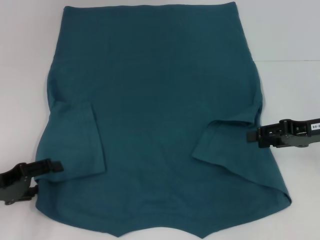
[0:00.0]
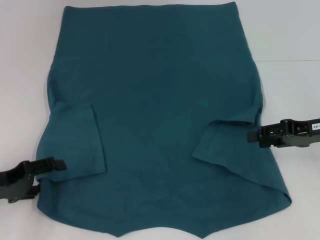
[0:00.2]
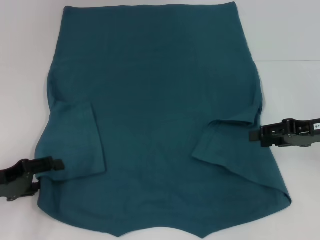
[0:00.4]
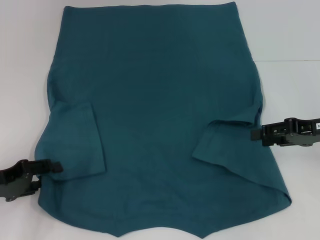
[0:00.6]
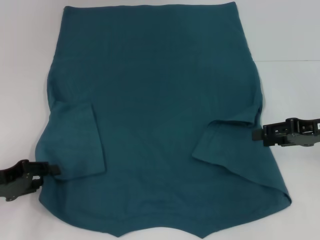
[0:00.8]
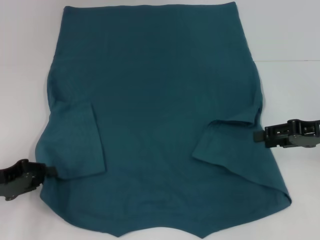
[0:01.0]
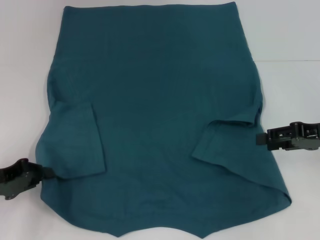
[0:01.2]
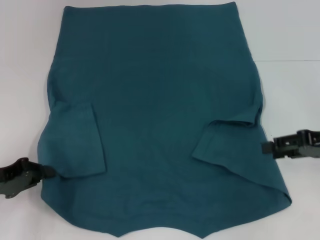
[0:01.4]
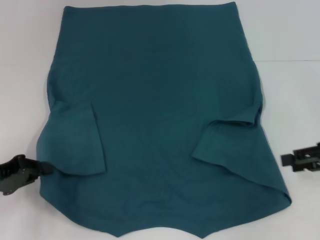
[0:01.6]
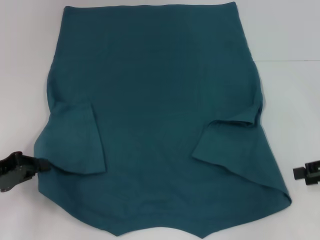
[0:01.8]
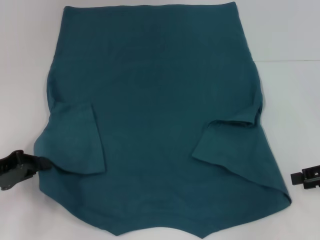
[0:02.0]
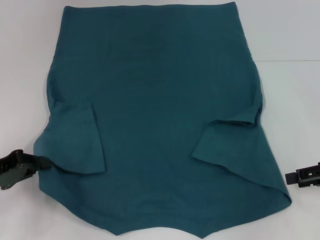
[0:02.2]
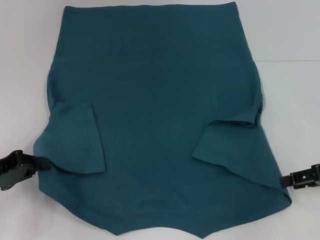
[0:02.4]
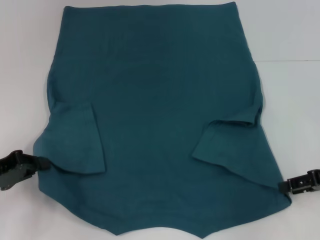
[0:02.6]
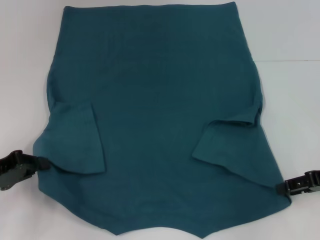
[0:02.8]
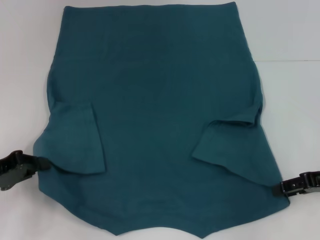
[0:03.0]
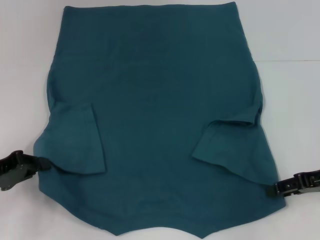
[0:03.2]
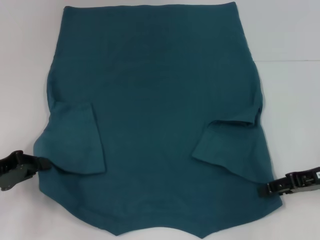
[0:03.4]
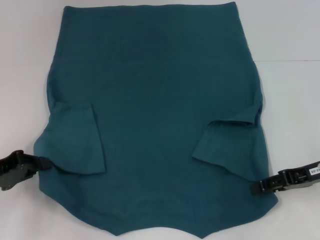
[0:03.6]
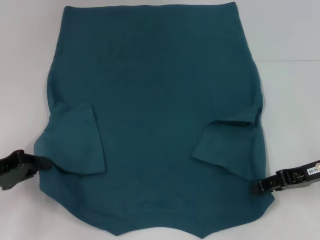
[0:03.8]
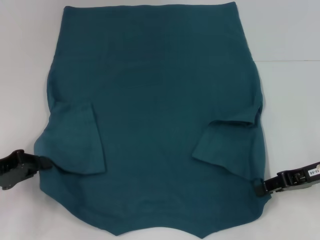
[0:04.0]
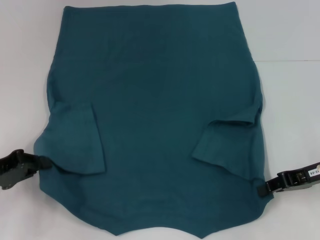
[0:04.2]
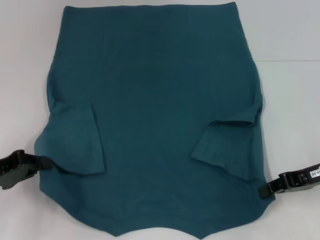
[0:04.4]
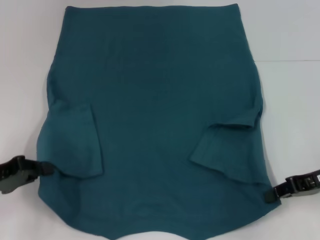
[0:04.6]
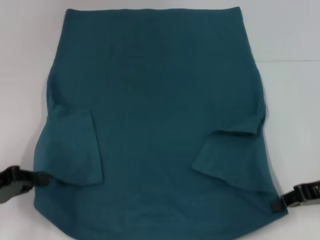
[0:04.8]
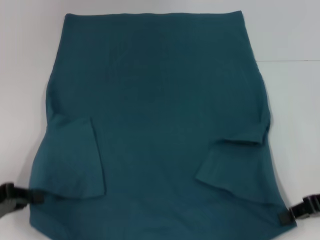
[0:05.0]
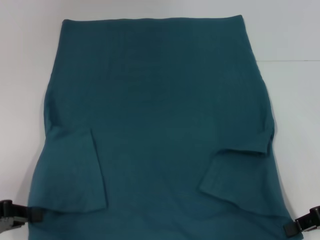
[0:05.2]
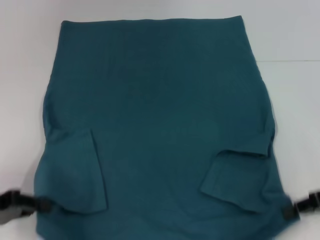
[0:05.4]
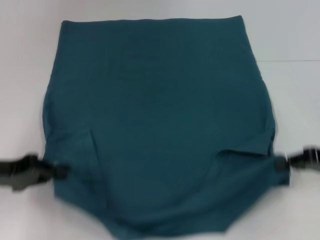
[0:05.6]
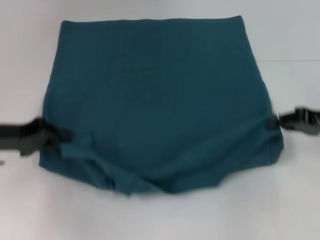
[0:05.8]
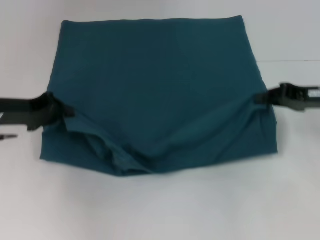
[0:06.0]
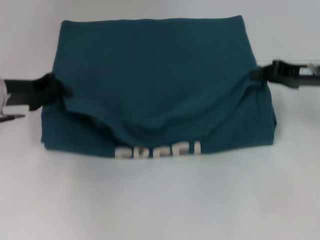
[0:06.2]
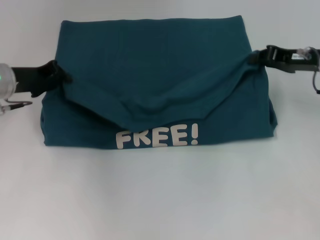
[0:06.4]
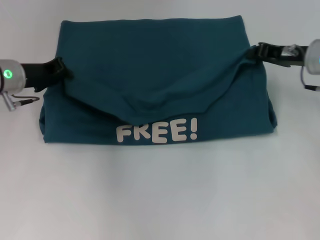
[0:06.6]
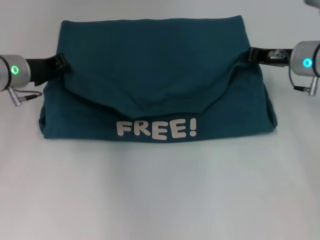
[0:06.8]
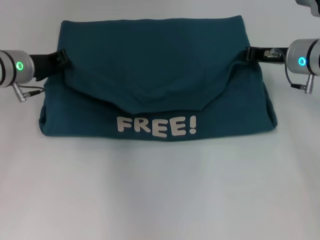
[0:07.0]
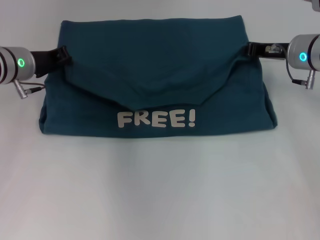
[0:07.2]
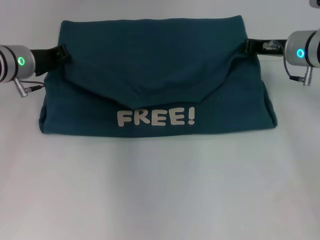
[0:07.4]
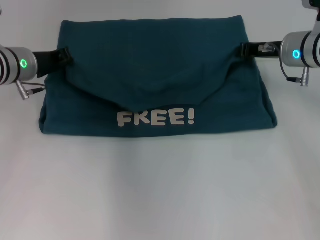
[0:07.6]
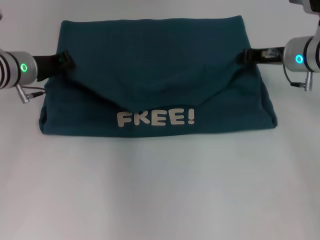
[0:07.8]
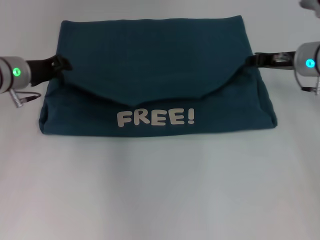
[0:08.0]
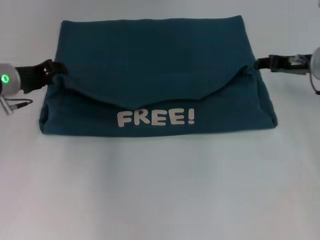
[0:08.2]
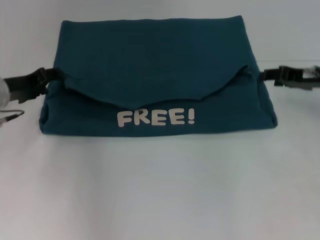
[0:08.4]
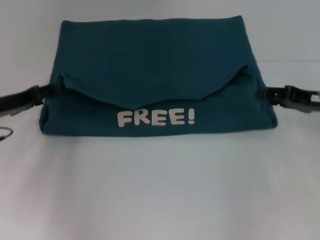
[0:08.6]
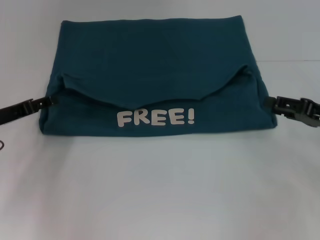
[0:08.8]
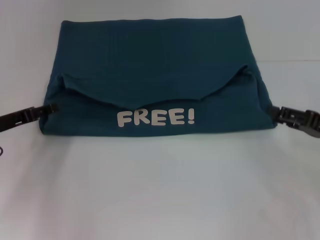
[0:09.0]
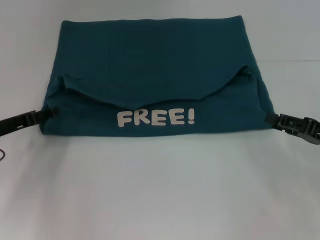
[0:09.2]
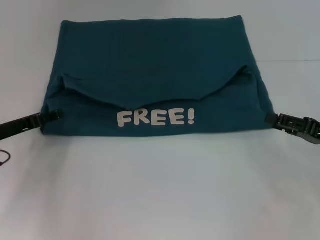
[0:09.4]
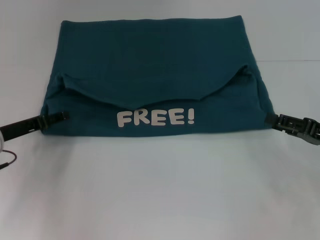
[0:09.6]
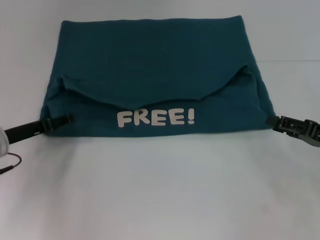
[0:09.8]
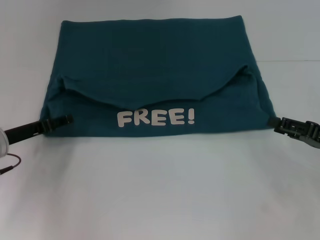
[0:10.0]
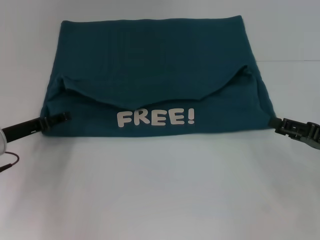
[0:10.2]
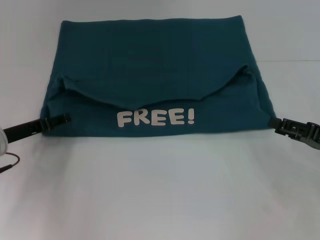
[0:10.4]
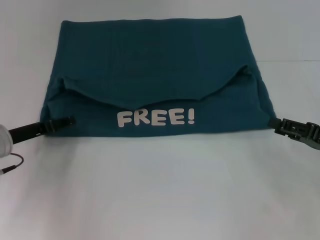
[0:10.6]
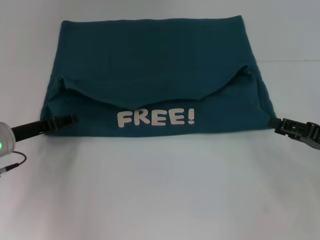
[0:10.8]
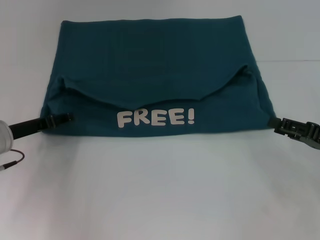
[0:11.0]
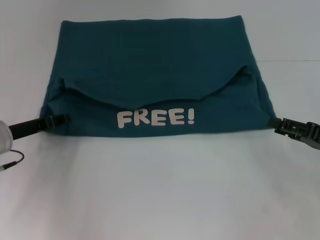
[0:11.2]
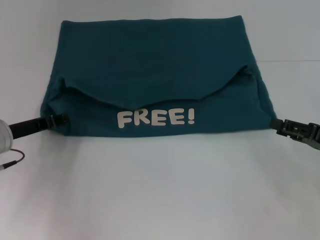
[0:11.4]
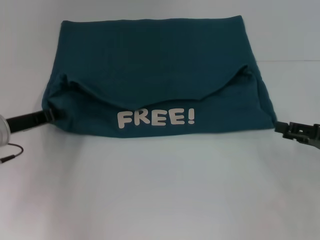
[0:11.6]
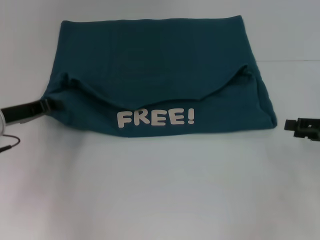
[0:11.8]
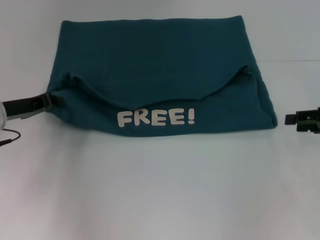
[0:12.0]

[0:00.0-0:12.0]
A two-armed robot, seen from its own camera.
Step, 0:01.4 to 0:04.4: Grab the bottom right corner with your right hand.
Step, 0:04.6 to 0:08.2: Fold the clothes to the left.
Step, 0:04.6 to 0:08.2: Fold the clothes to the right.
0:00.0 to 0:01.6: The right gripper shifts by some 5 cm. Meanwhile the left gripper closes its fingers.
0:01.6 to 0:03.0: The grippers stay close to where they were, moving slightly.
0:03.0 to 0:04.4: The right gripper closes up.
0:04.4 to 0:06.0: The left gripper goes about 10 cm forward. Meanwhile the right gripper heads forward, covering some 5 cm.
0:06.0 to 0:07.6: The left gripper moves forward and to the right, about 10 cm. The right gripper heads forward and to the left, covering approximately 10 cm.
0:07.6 to 0:09.0: The right gripper shifts approximately 20 cm backward and to the right, and opens its fingers. Meanwhile the left gripper goes roughly 15 cm backward, to the left and downward, and opens up.
0:09.0 to 0:10.4: There are only small adjustments of the grippers.
0:10.4 to 0:12.0: The right gripper moves forward, roughly 5 cm. Meanwhile the left gripper closes up.

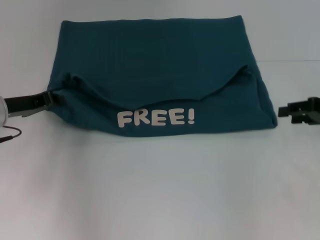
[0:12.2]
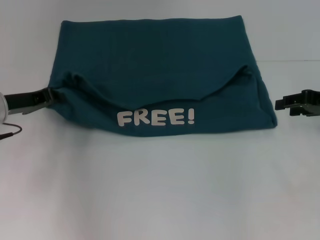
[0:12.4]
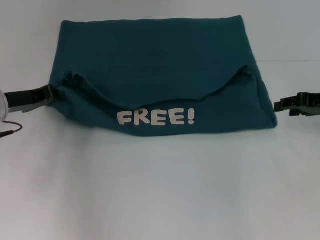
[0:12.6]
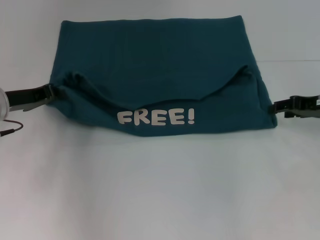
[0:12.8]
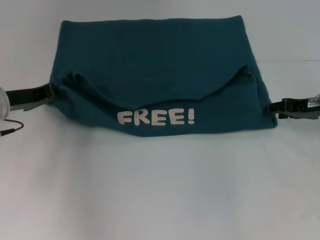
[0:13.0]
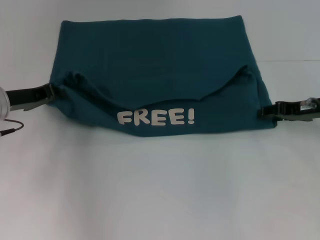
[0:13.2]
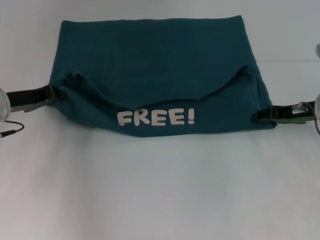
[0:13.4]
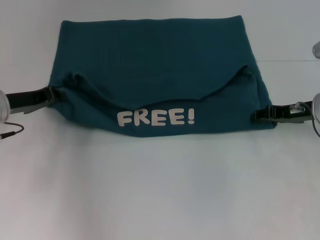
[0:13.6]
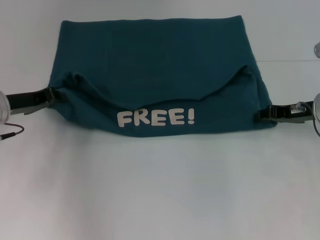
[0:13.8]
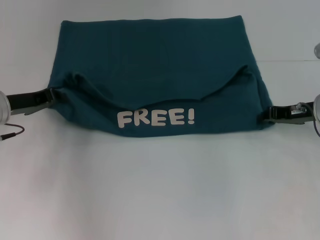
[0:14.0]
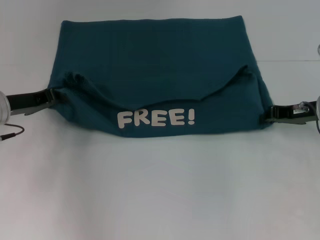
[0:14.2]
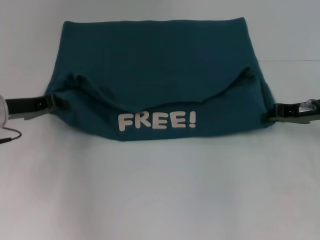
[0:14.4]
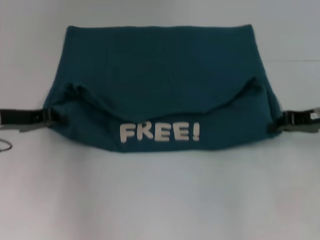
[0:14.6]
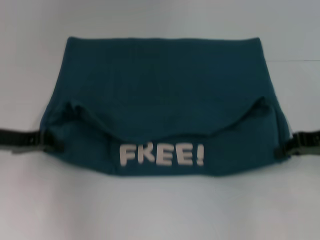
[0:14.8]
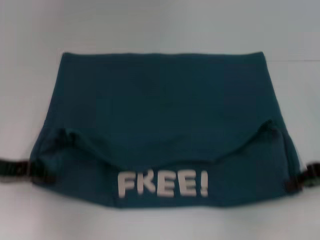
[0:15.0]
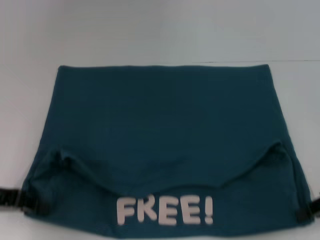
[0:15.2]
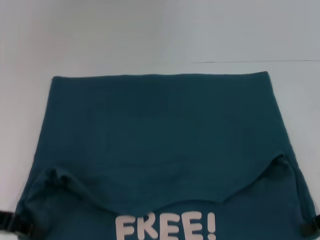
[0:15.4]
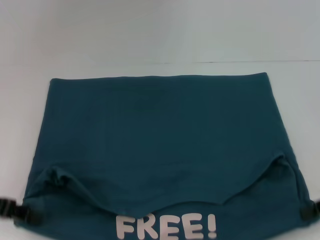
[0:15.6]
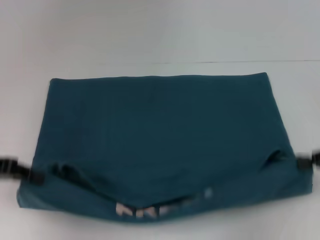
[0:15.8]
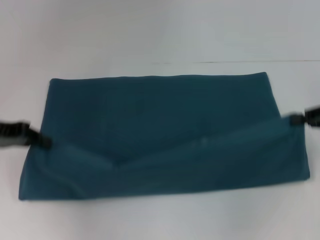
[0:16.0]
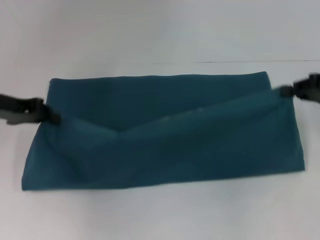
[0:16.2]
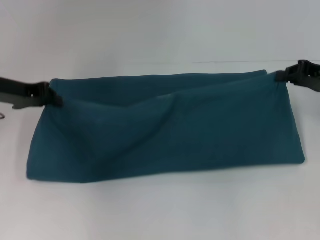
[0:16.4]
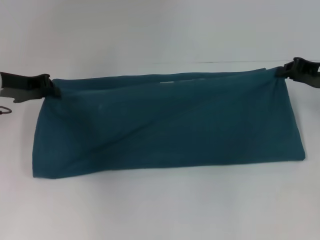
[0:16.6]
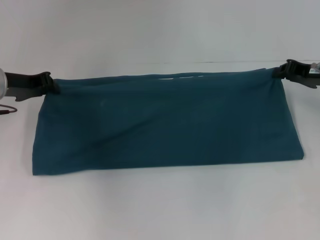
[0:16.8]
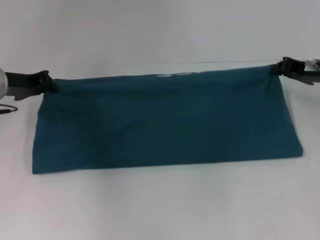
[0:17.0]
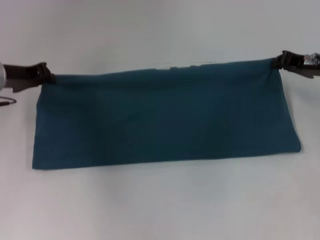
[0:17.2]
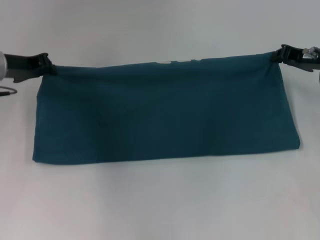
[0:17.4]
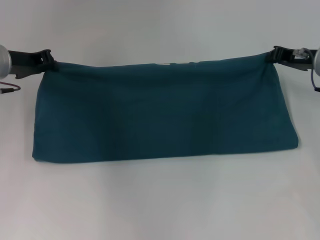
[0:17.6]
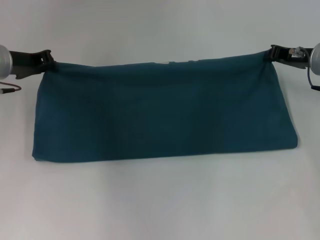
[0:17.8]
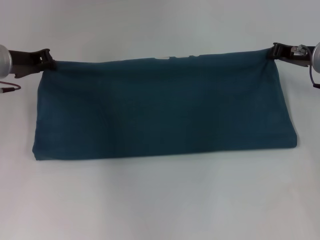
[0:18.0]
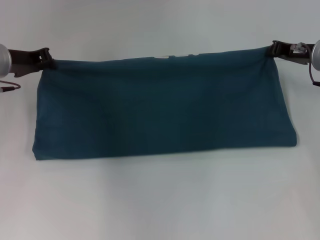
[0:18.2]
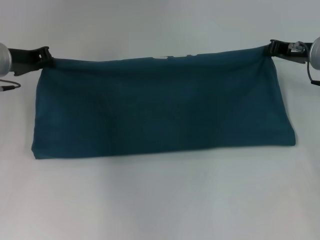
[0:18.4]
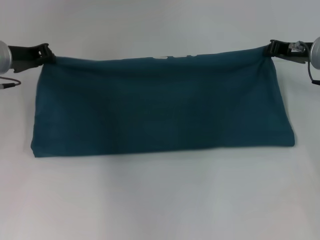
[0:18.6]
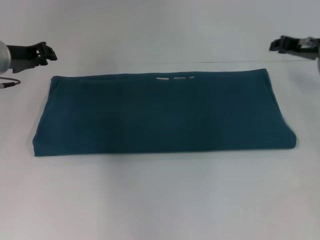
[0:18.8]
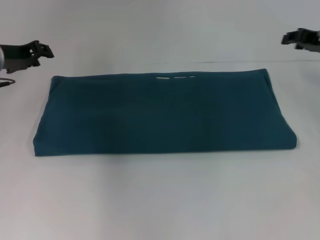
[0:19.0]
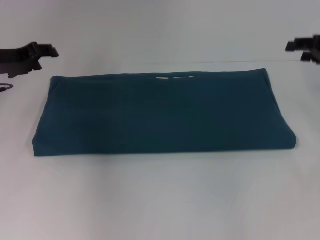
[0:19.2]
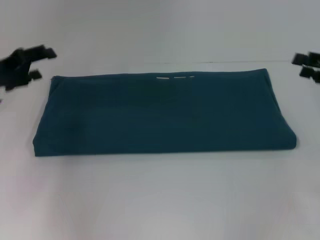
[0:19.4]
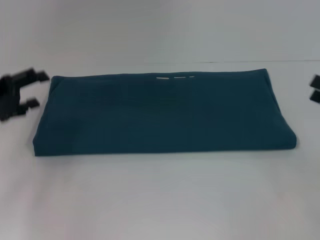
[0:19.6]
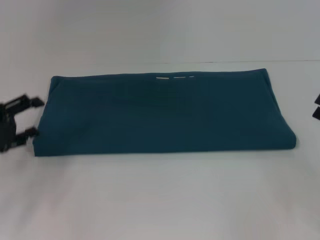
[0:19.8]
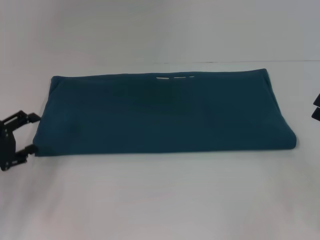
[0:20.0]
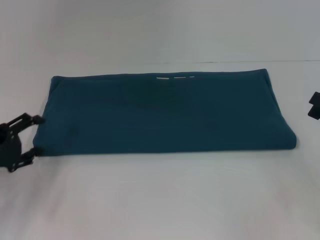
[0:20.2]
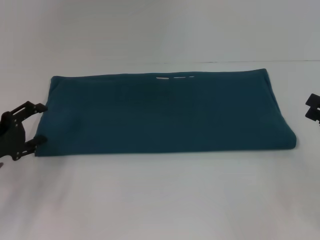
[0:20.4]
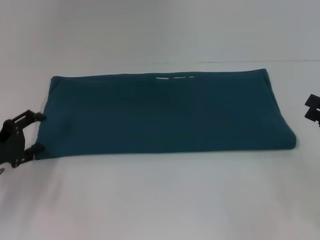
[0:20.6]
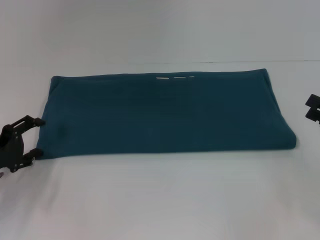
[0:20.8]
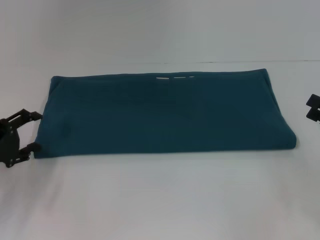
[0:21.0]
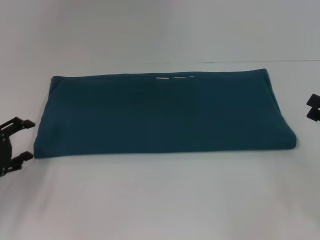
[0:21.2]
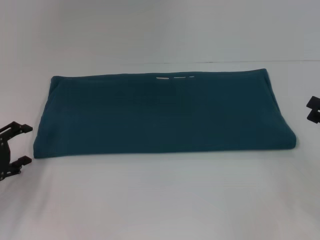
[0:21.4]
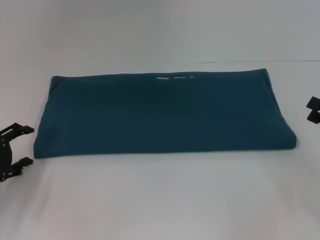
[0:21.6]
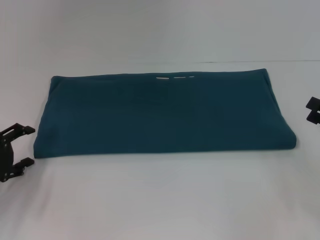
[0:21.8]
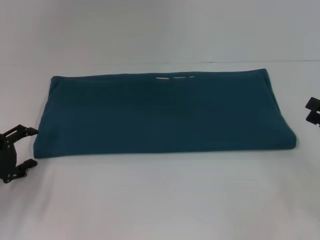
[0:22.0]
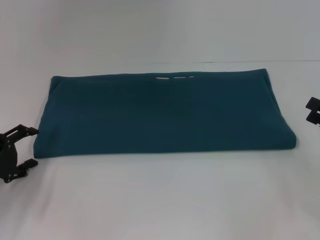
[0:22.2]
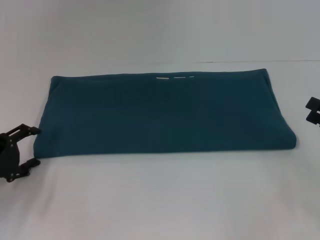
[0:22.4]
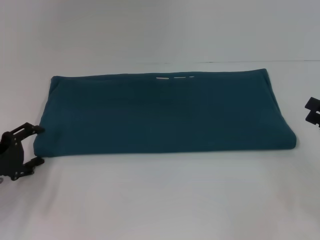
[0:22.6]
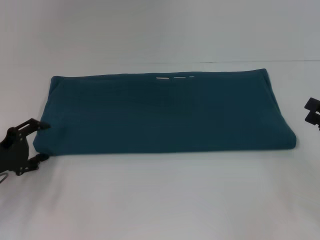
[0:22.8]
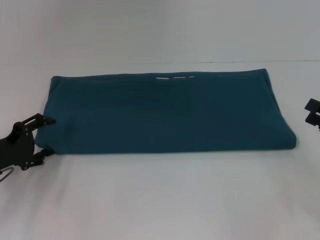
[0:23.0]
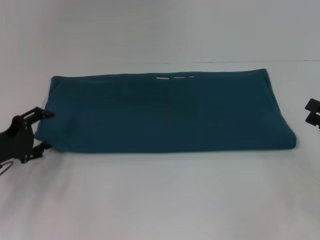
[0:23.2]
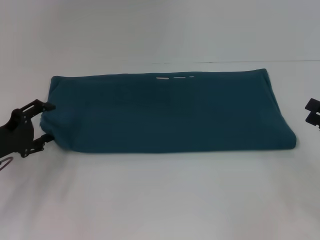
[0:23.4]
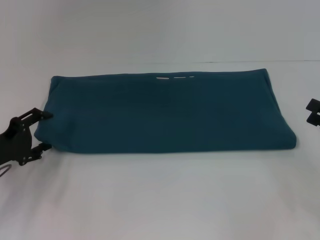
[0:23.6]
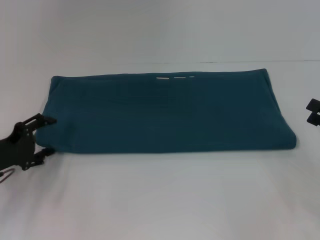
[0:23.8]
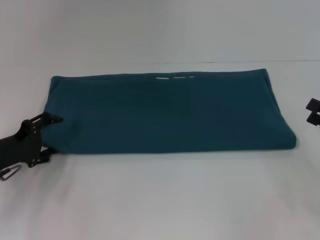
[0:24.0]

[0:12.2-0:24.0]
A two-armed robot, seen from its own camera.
Step, 0:12.2 to 0:15.4: Pull the clothes with your left hand.
Step, 0:12.2 to 0:15.4: Pull the clothes with your right hand.
Step, 0:15.6 to 0:19.0: Fold the clothes to the right.
0:12.2 to 0:13.6: The right gripper heads to the left, covering approximately 5 cm.
0:13.6 to 0:15.2: The right gripper is displaced backward and to the right by some 15 cm, and closes up. Meanwhile the left gripper heads backward, covering roughly 10 cm.
0:15.2 to 0:16.6: Both grippers move forward, about 15 cm.
0:16.6 to 0:18.2: The right gripper ends up some 5 cm from where it was.
0:18.2 to 0:19.6: The left gripper shifts some 10 cm backward and to the left, and opens. The right gripper travels backward and to the right by some 20 cm, and opens.
0:19.6 to 0:21.0: The left gripper shifts about 5 cm downward.
0:21.0 to 0:24.0: The grippers move only a little.
